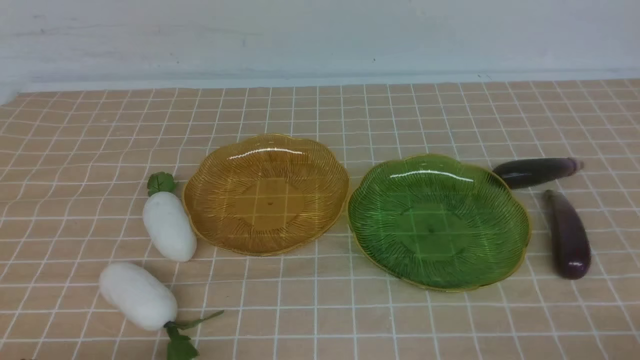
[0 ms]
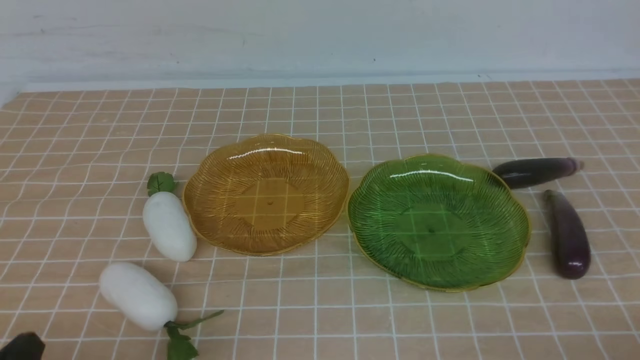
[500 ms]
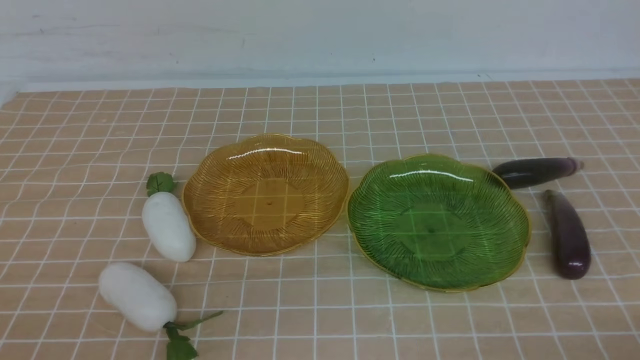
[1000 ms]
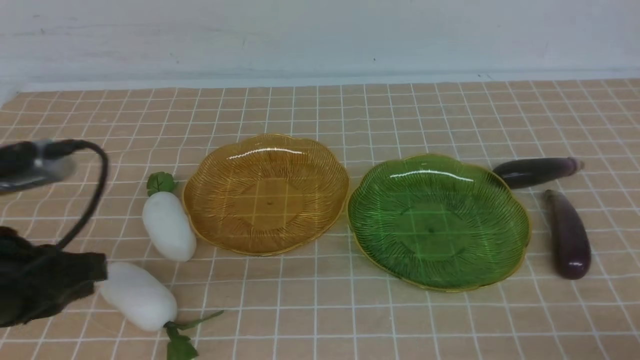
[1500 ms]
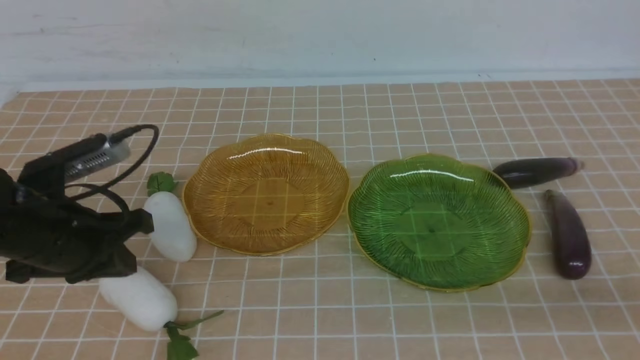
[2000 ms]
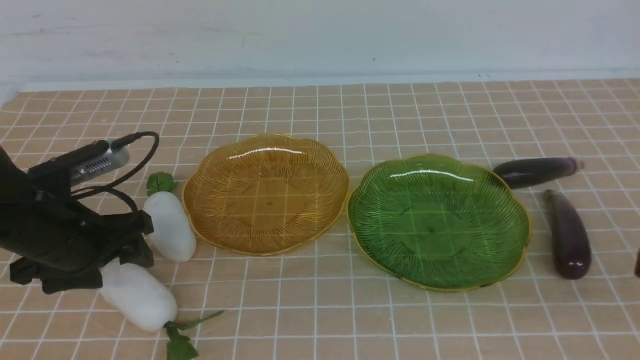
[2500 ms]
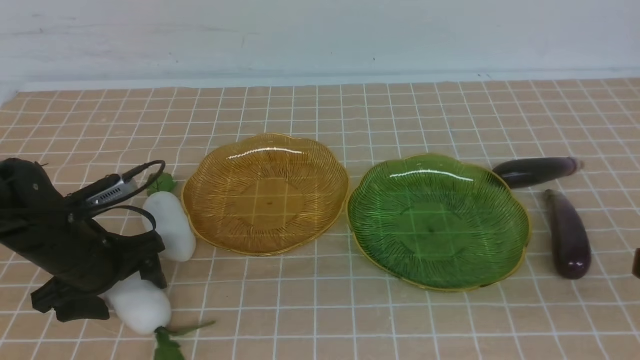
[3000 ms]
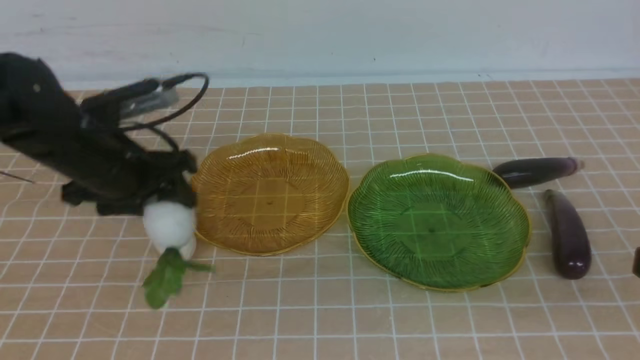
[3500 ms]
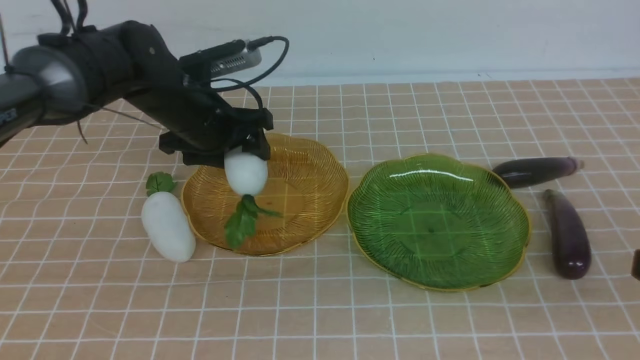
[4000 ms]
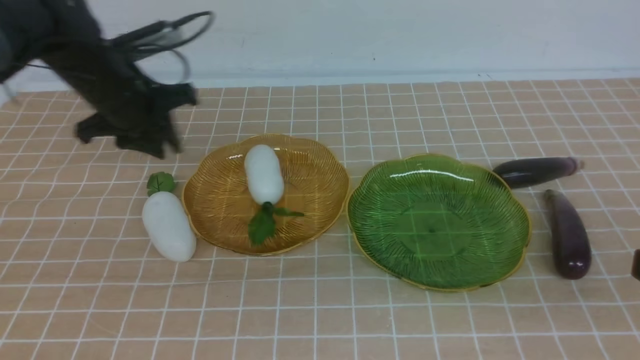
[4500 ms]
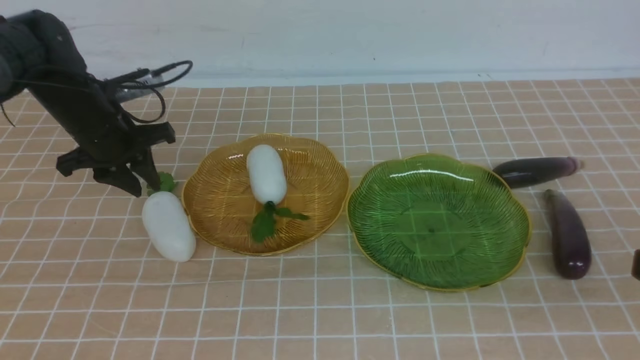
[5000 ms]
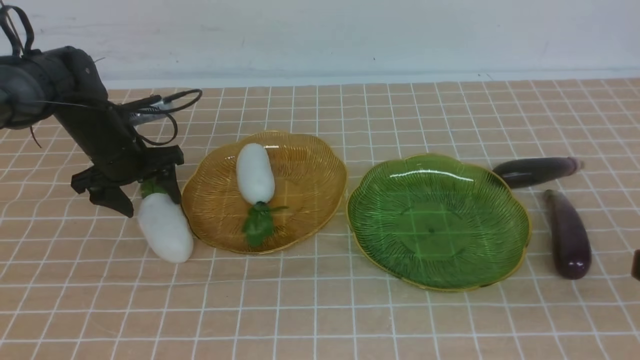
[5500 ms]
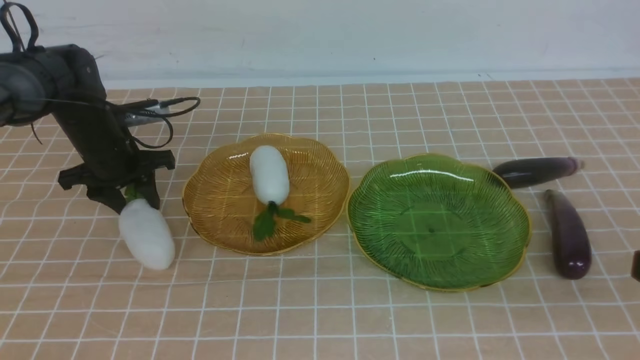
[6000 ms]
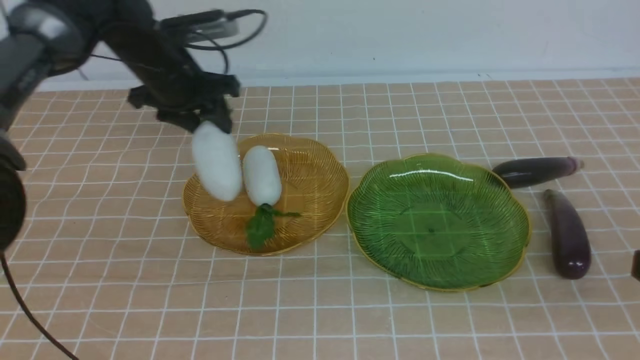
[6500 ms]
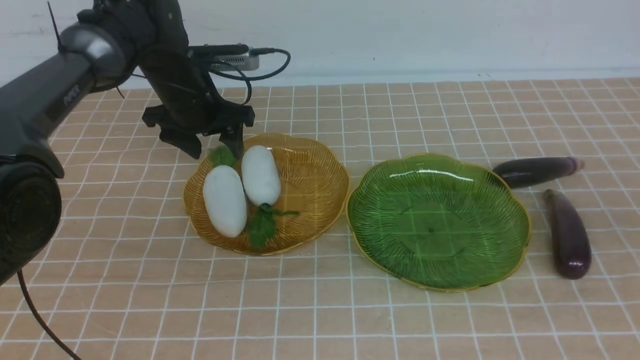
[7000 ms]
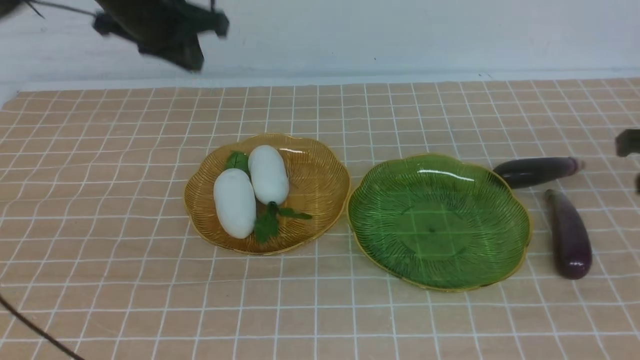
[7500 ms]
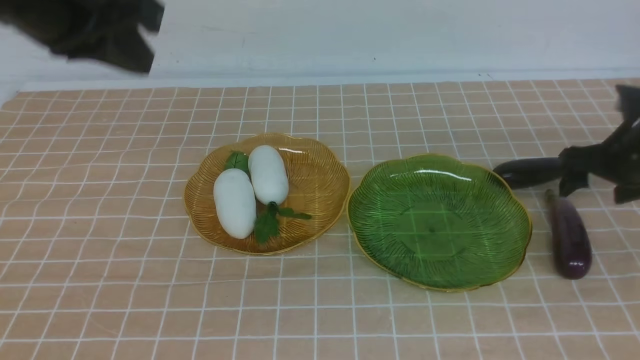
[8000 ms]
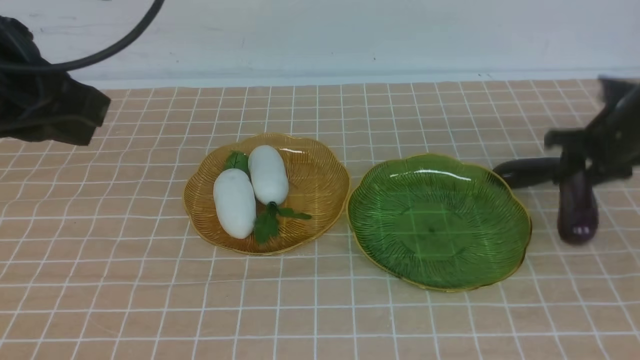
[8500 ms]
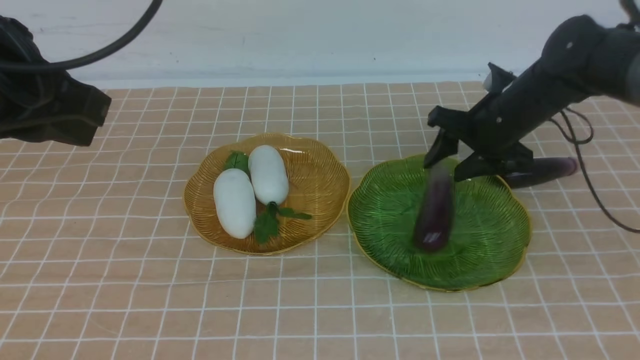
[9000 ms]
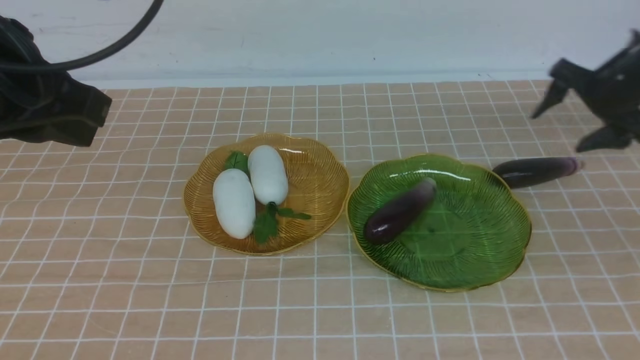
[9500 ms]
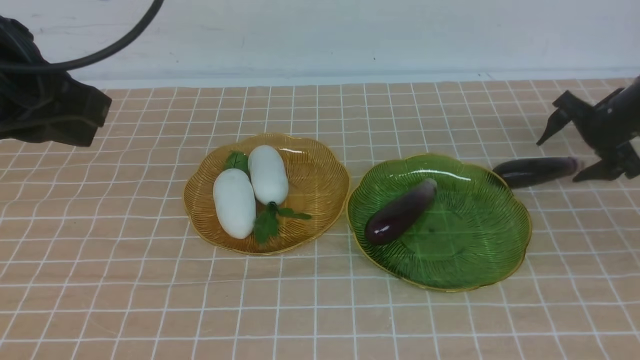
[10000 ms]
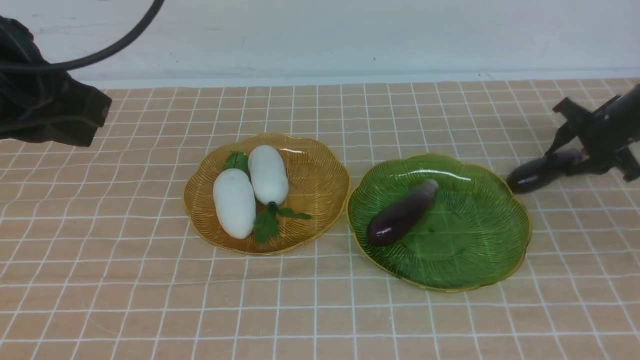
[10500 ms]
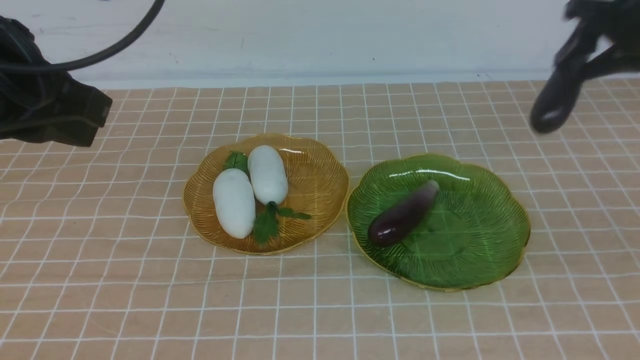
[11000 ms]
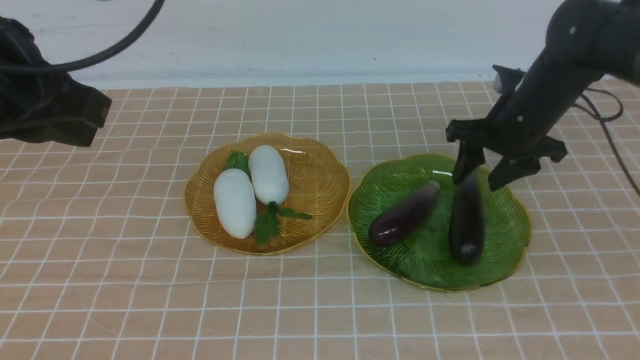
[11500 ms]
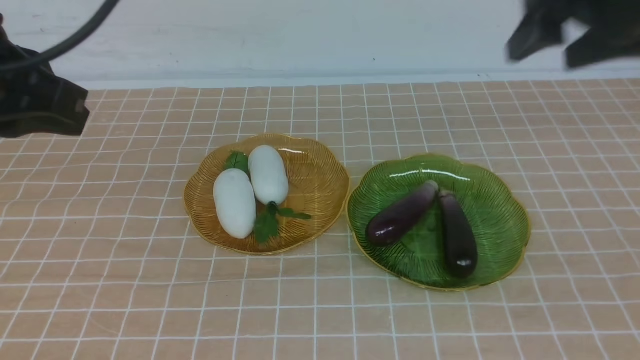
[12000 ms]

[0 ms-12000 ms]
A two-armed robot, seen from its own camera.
Step, 0 ms to 4000 ms: use the left arm to grab a radish and put it into the left plate.
Step, 4500 ms to 7000 ms: use the left arm to grab a radish and put it into the left plate.
Step, 7500 ms to 9000 ms: use the right arm to grab an eggplant and put it into the right plate.
Step, 9500 ms to 11500 ms: use the right arm to grab an eggplant and put it into the right plate.
0 ms to 2000 ms: The left gripper heads forward, covering approximately 20 cm.
2000 ms to 4000 ms: The right gripper travels upward by about 5 cm; the left gripper is displaced forward and to the right by about 20 cm, and opens up.
4000 ms to 6000 ms: The left gripper travels to the left by some 10 cm, and closes its fingers.
6000 ms to 8000 ms: The left gripper is displaced upward and backward by about 30 cm, and closes its fingers; the right gripper is displaced forward and downward by some 35 cm, and opens its fingers.
8000 ms to 10000 ms: The right gripper moves forward, approximately 10 cm, travels to the left and back again, some 10 cm each way, and closes, then opens again.
10000 ms to 12000 ms: The right gripper moves up and down over roughly 25 cm, changing direction 2 times.

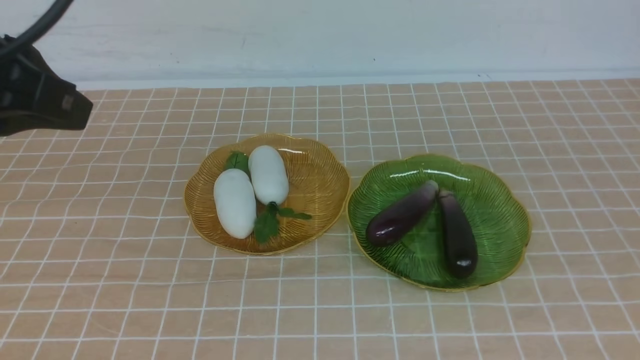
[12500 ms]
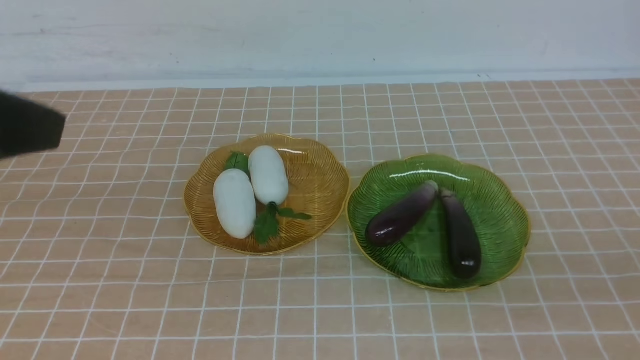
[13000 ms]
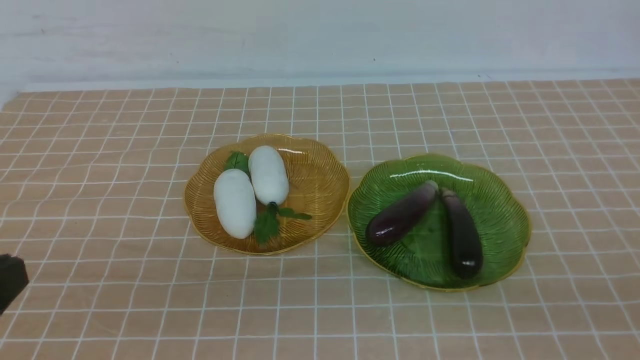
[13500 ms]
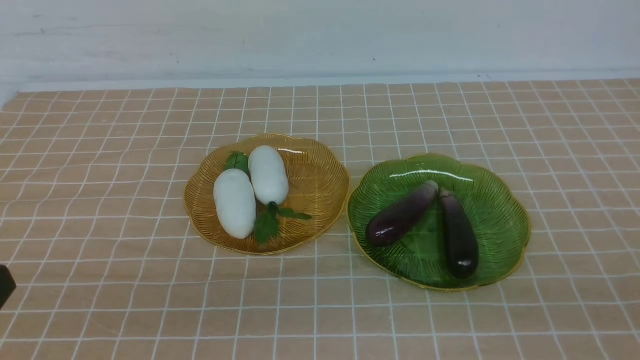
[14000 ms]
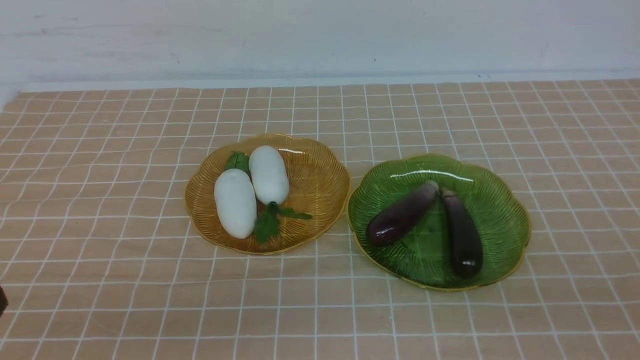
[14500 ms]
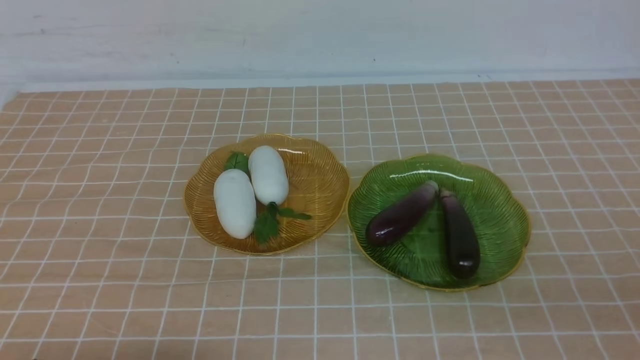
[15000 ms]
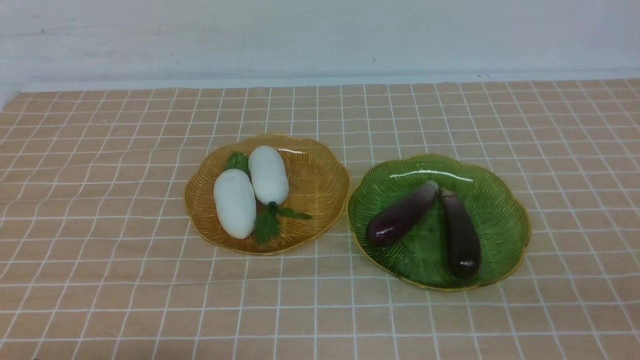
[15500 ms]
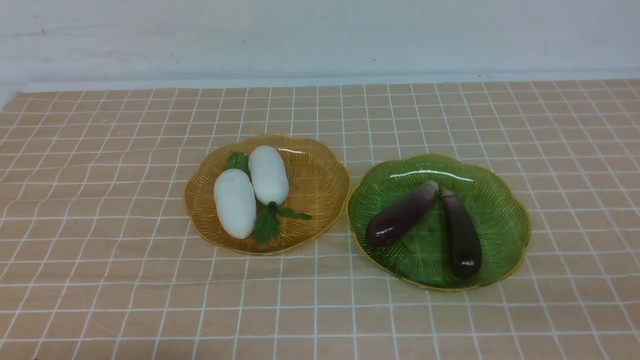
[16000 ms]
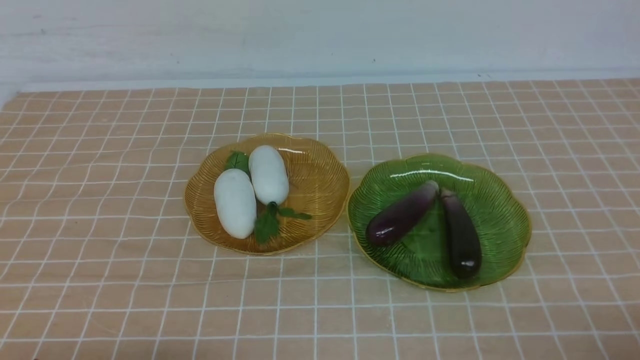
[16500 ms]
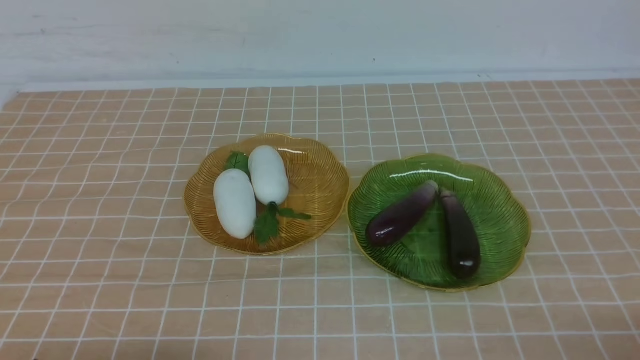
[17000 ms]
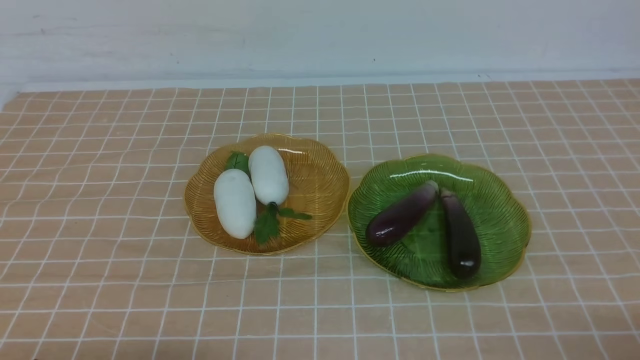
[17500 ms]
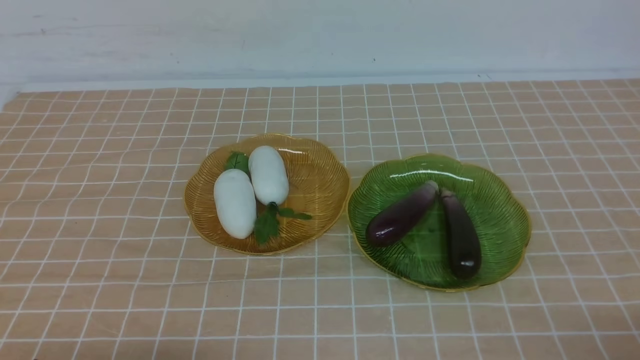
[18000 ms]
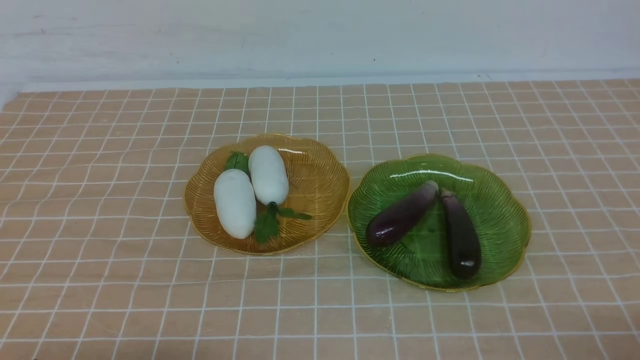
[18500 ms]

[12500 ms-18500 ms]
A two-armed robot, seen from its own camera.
12500 ms to 14500 ms: The left gripper moves downward and backward, about 25 cm. Meanwhile the right gripper goes roughly 20 cm backward and downward.
14500 ms to 16500 ms: The left gripper is displaced downward by about 5 cm. Meanwhile the right gripper is displaced downward by roughly 15 cm.
